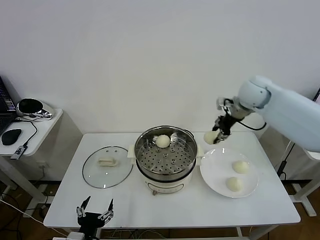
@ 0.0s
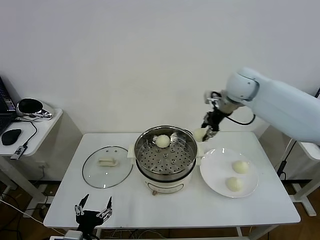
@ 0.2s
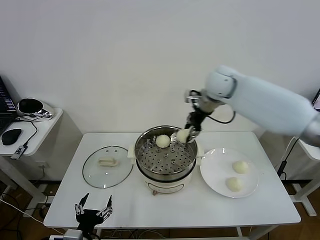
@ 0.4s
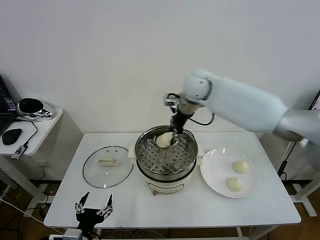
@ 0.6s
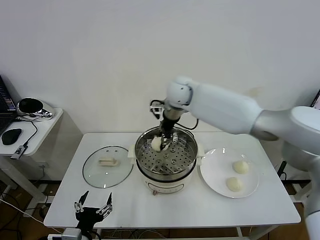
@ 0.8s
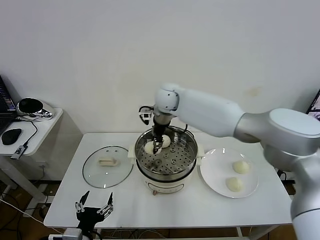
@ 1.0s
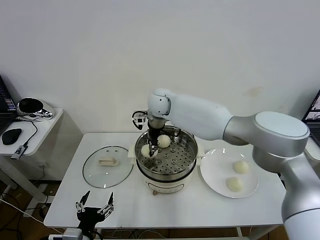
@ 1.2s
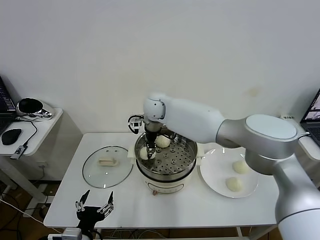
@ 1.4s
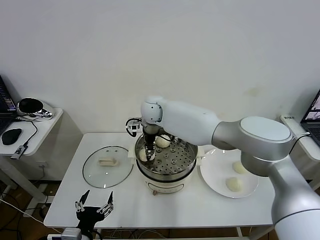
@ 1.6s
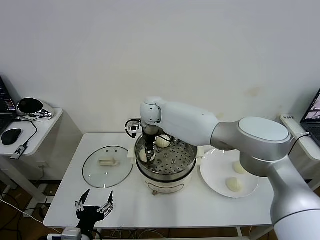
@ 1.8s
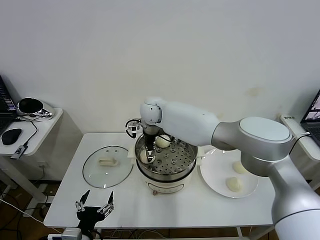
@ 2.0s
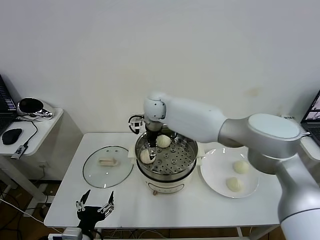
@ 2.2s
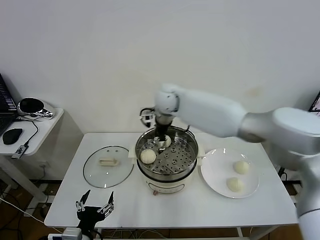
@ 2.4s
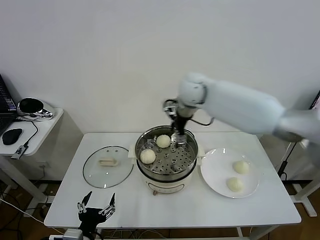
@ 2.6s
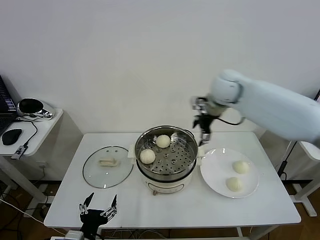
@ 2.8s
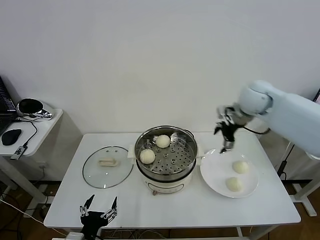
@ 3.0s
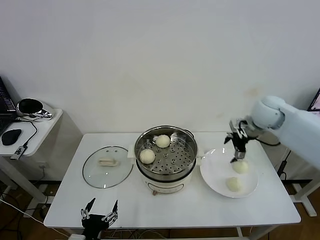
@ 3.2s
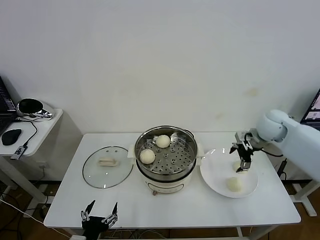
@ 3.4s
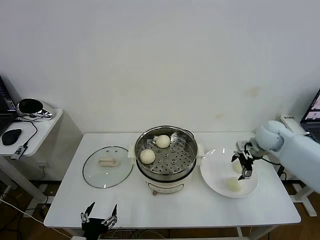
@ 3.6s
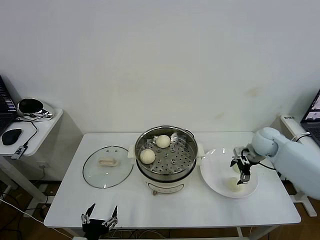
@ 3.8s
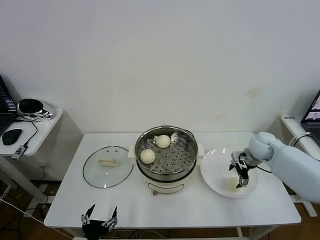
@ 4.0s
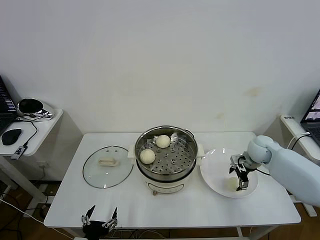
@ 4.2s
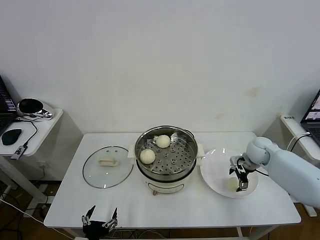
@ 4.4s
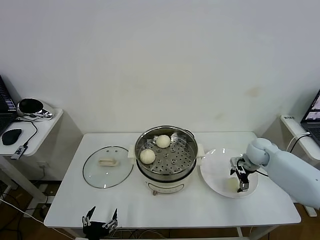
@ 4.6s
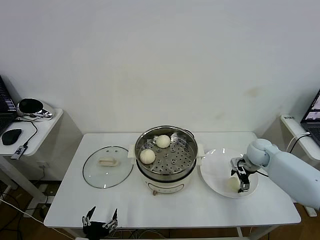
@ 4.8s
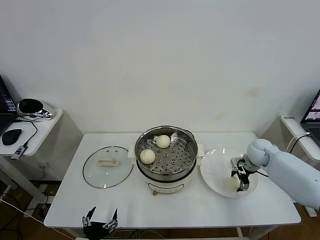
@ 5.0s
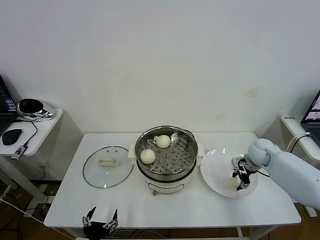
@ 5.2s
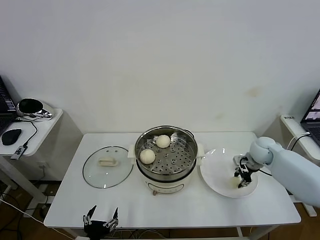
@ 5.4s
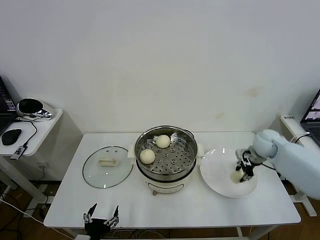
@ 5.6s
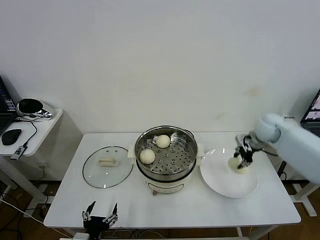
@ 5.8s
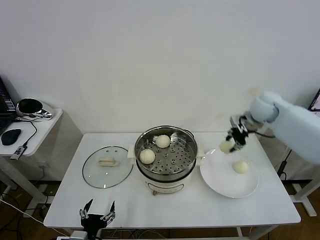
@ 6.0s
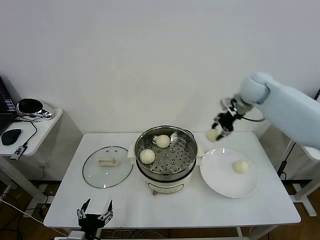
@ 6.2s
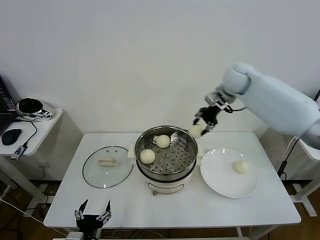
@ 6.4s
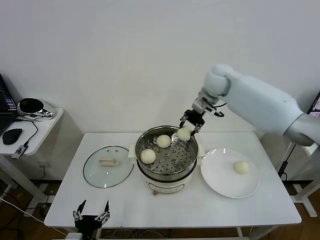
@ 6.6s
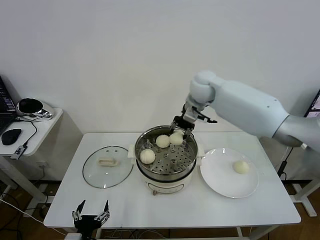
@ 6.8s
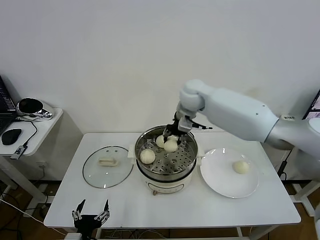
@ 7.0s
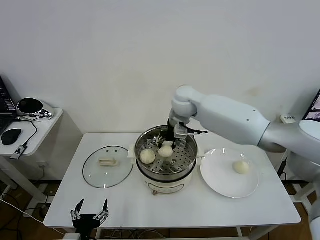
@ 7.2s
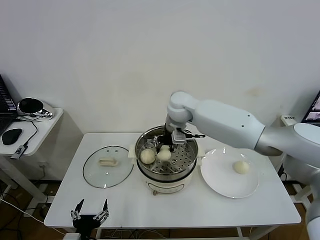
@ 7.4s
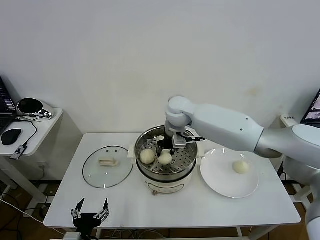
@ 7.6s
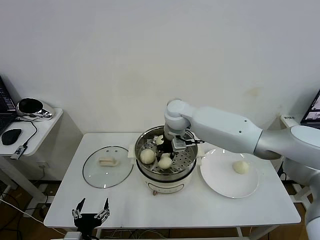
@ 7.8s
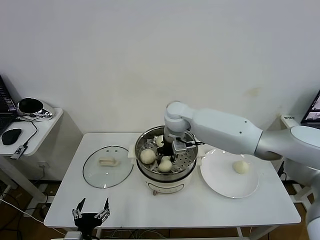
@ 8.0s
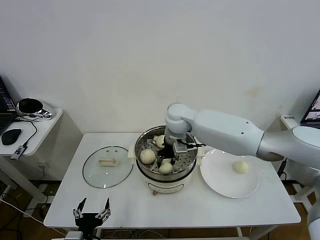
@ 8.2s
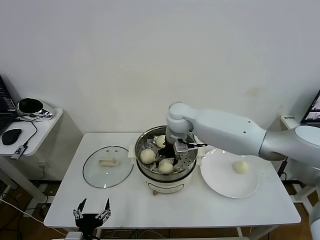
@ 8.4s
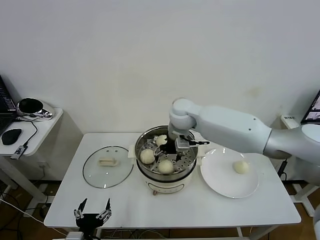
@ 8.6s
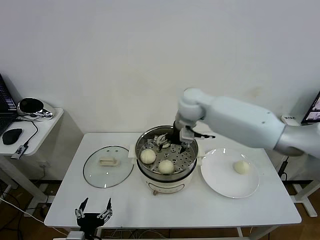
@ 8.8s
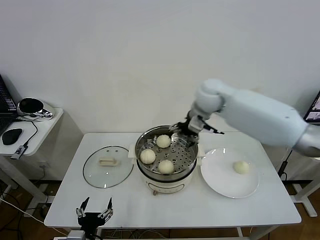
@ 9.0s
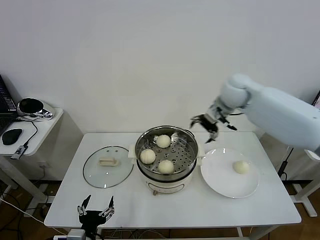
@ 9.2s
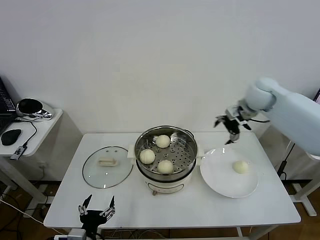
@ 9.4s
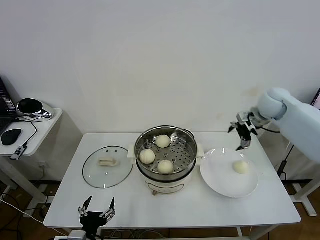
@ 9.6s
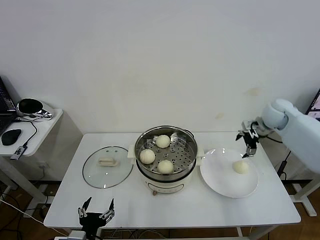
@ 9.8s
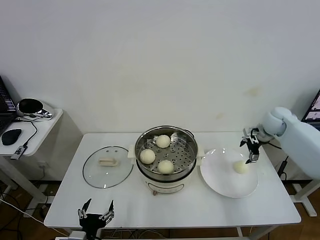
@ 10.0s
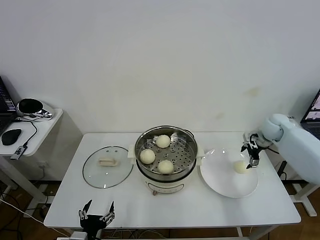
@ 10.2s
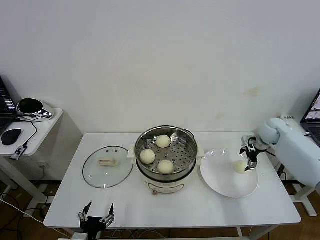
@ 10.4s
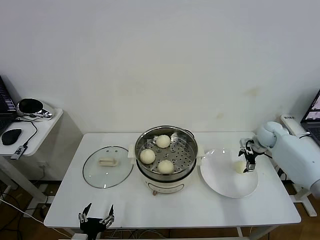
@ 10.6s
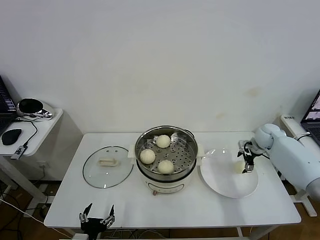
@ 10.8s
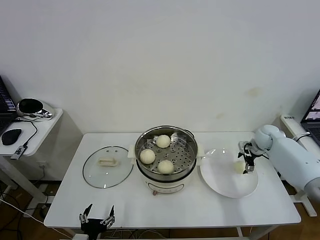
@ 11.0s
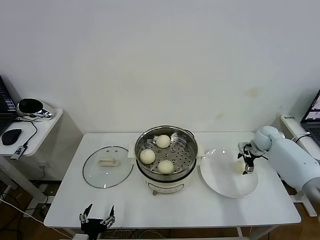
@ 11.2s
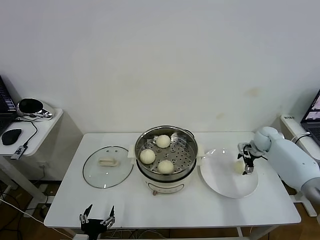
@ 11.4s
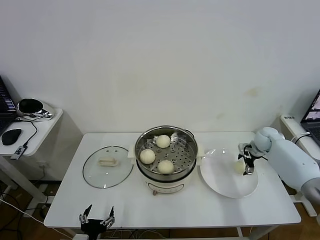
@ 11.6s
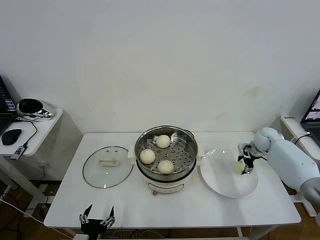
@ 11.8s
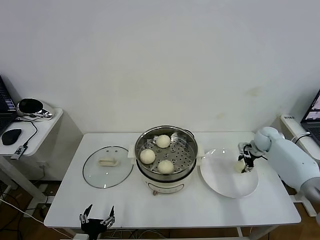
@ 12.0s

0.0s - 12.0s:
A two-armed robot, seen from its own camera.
Task of the whole recording: take steamed baozi put them in steamer then cover it.
Step, 0.0s - 2.0s: Place the baozi on the steamer with right gripper.
Step, 2.2s - 5.2s: Grasp the baozi in the plate with right gripper.
Step, 5.4s - 8.6s: Place the baozi on the steamer with right gripper.
Step, 8.8s - 12.0s: Grasp the baozi in the plate with right gripper.
0.0s - 1.6s: The right gripper moves to the left, roughly 30 cm.
1.6s - 3.0s: The right gripper shifts roughly 35 cm to the right, and opens its fingers.
3.0s - 4.4s: The right gripper travels downward by some 20 cm.
4.4s - 6.0s: The right gripper is displaced upward by some 20 cm, and closes its fingers.
6.0s - 7.6s: The right gripper goes some 25 cm to the left.
7.6s - 9.0s: The right gripper is displaced to the right and upward by approximately 15 cm, and opens up.
9.0s - 10.4s: The right gripper is displaced to the right and downward by roughly 30 cm.
10.4s - 12.0s: The right gripper closes its fingers.

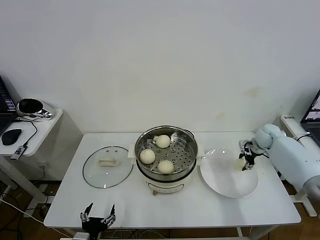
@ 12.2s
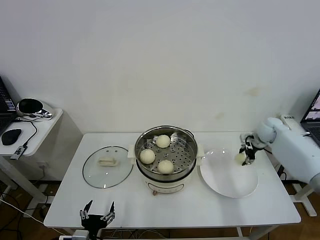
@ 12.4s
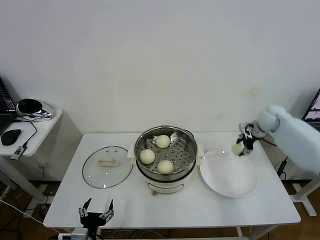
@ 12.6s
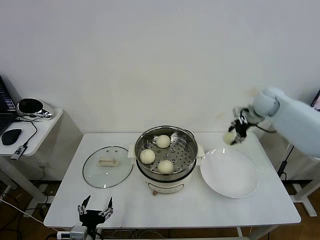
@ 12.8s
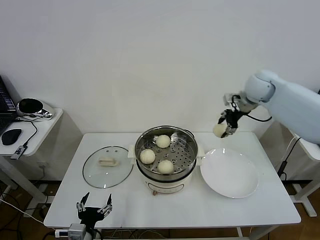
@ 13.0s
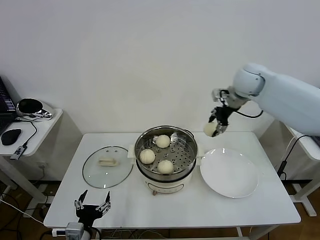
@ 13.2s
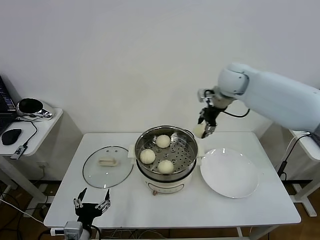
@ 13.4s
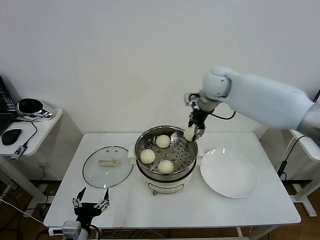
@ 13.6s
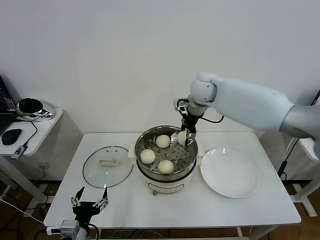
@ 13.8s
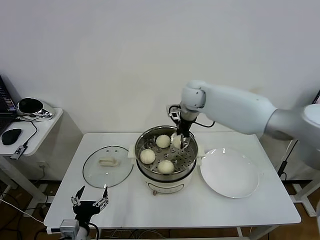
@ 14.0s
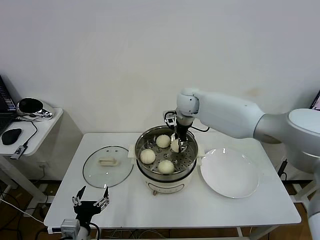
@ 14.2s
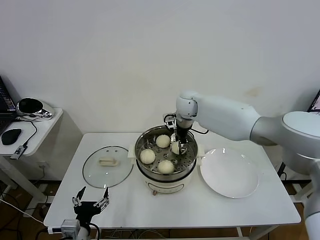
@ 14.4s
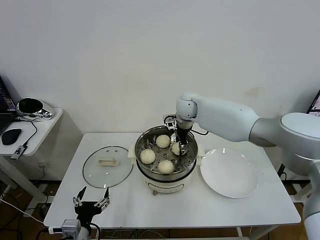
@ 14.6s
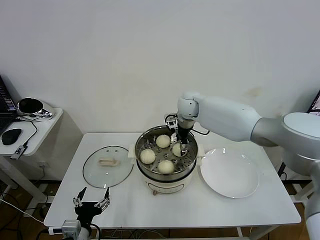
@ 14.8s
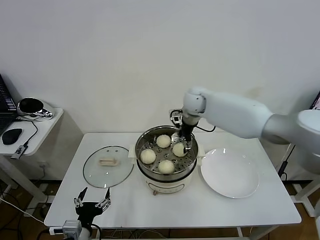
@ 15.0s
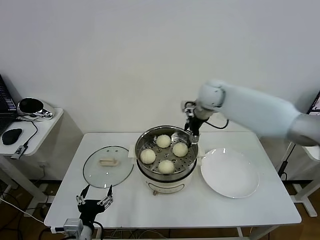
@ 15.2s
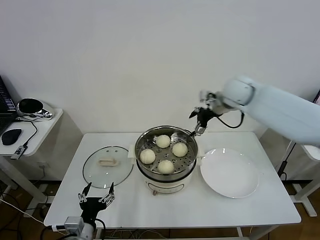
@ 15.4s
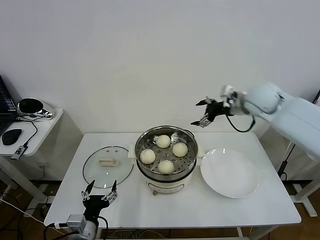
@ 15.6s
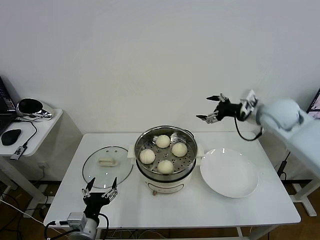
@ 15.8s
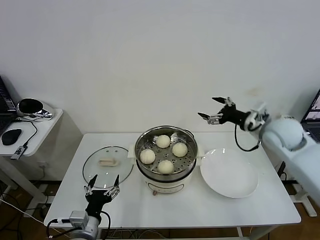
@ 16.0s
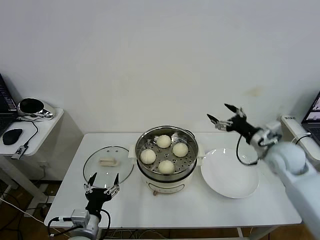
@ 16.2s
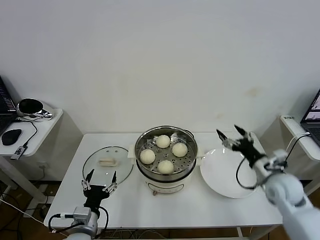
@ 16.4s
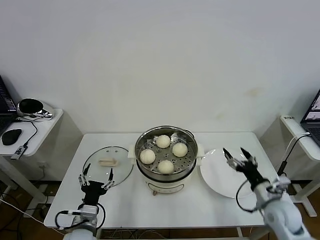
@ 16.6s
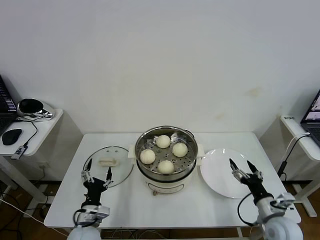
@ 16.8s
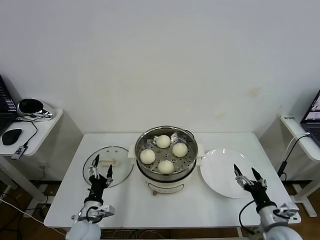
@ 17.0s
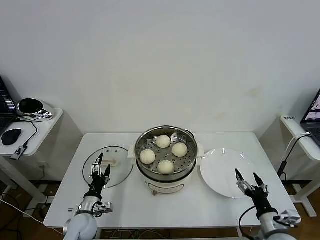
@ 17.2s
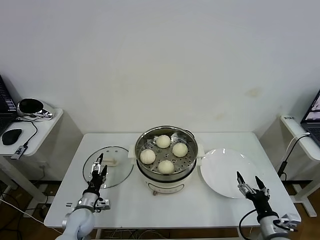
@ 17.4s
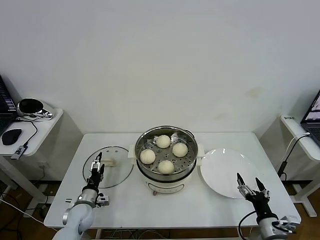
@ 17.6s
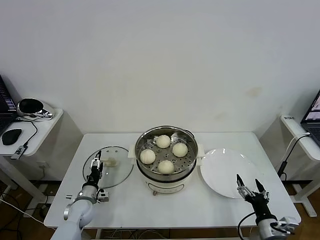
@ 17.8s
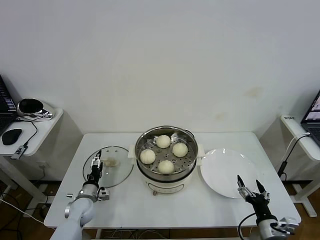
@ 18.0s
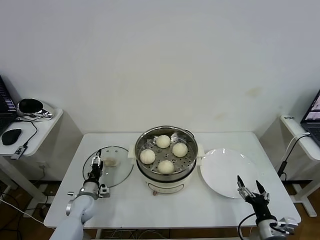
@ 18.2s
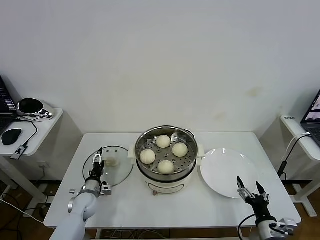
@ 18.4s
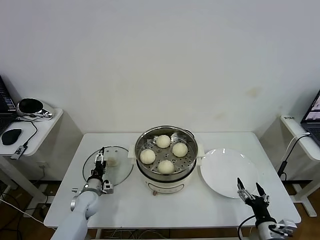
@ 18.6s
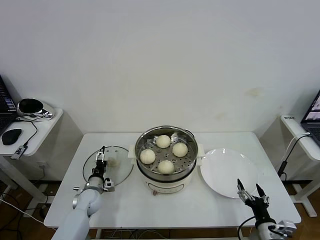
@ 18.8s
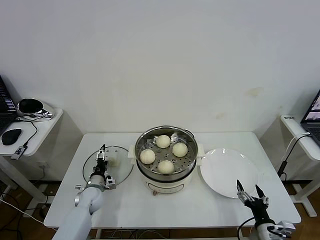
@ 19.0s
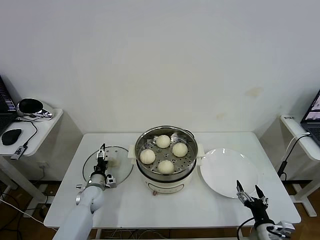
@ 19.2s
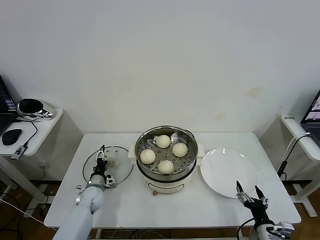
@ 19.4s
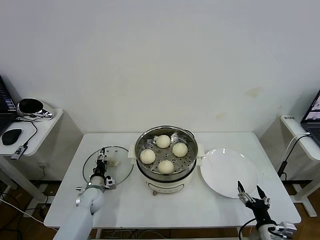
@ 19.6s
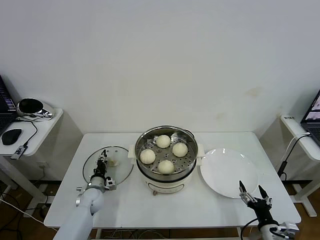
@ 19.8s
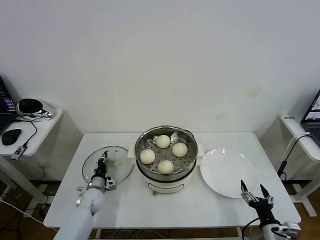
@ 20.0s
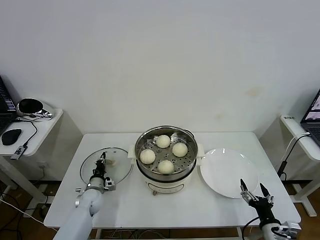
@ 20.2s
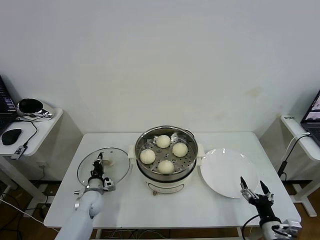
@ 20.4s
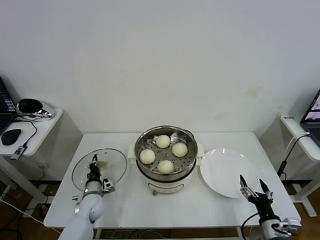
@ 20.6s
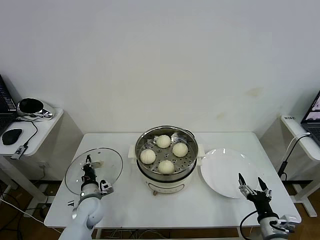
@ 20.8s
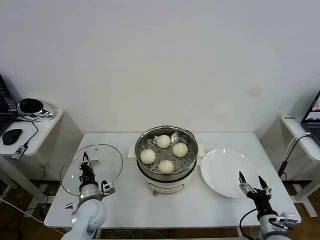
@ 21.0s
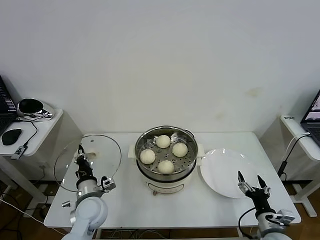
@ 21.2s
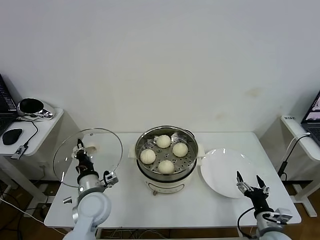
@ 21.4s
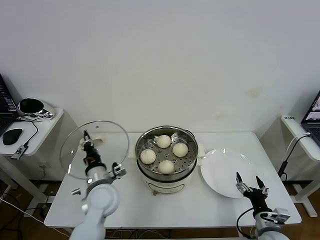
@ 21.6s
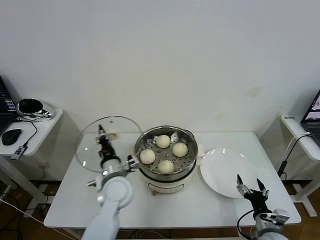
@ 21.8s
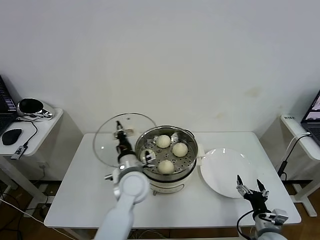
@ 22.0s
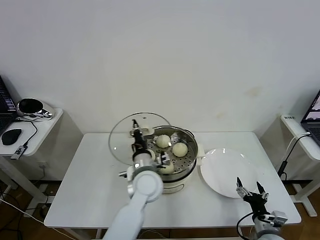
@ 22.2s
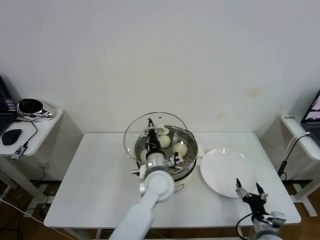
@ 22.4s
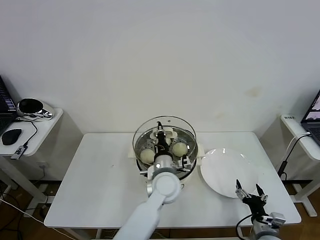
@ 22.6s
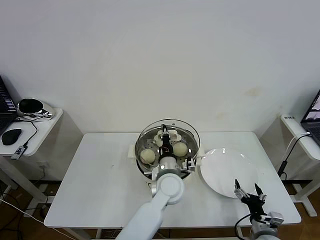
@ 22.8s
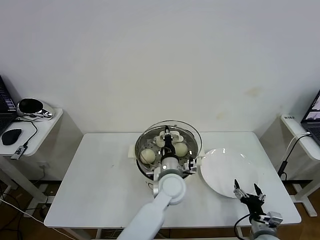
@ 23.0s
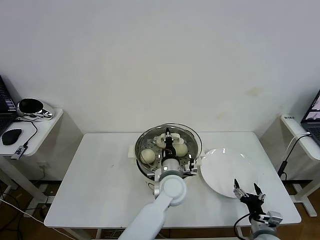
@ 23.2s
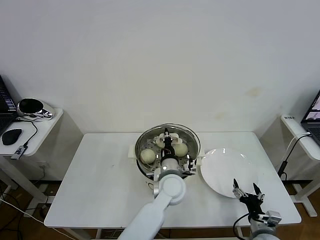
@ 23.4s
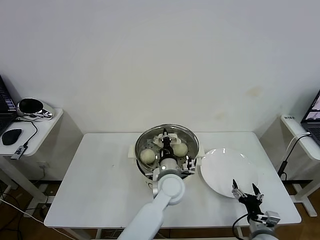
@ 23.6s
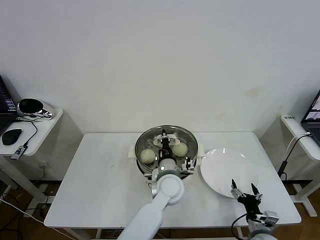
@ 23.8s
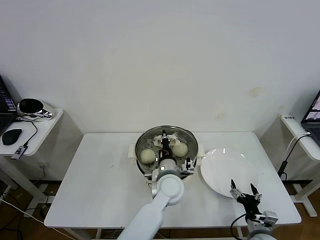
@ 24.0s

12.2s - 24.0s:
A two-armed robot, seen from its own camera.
Task of the whole recording: take steamed baozi put them in steamer then cover it.
Step, 12.2s - 15.0s: Place the baozi on the steamer with right gripper.
Step, 15.2s - 20.2s: Grasp the pot lid with left gripper.
12.2s - 13.6s: The right gripper moves to the left and upward, roughly 35 cm.
13.6s - 15.2s: The right gripper goes downward and returns, some 10 cm each way, and opens.
15.2s - 16.6s: The right gripper travels backward, downward and to the right by some 40 cm, while the left gripper is displaced forward by approximately 5 cm.
16.6s - 18.2s: The right gripper heads backward and downward, covering some 10 cm, while the left gripper is displaced forward, downward and to the left by some 20 cm.
18.2s - 19.6s: The grippers make only small movements.
19.6s - 21.0s: The left gripper heads upward, backward and to the right, covering about 15 cm, and closes up.
21.0s - 22.6s: The left gripper heads to the right and upward, covering roughly 30 cm.
22.6s - 24.0s: There are only small adjustments of the grippers.
